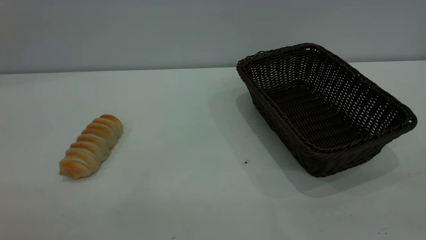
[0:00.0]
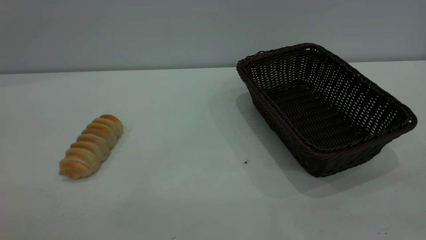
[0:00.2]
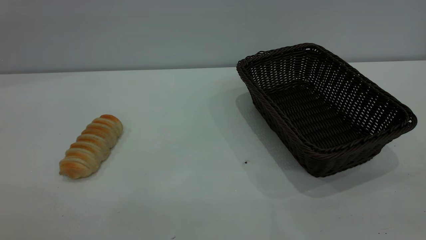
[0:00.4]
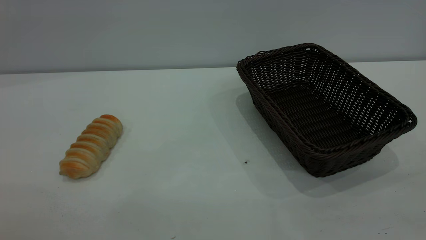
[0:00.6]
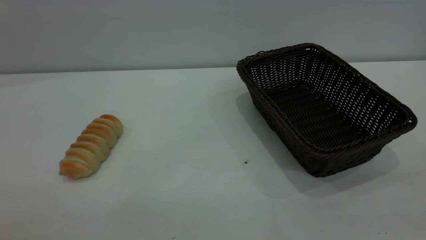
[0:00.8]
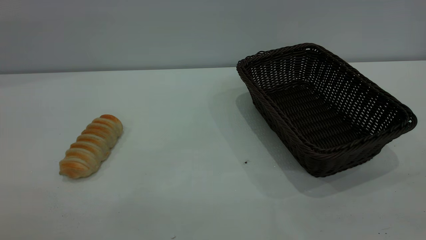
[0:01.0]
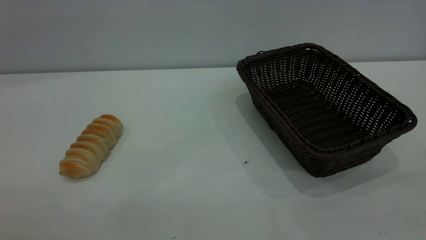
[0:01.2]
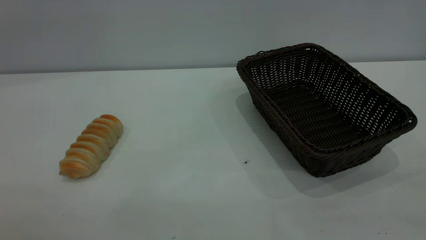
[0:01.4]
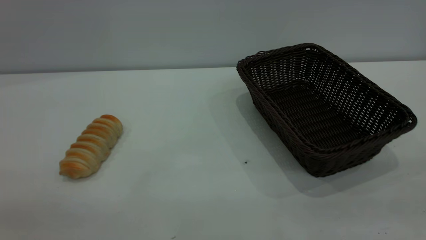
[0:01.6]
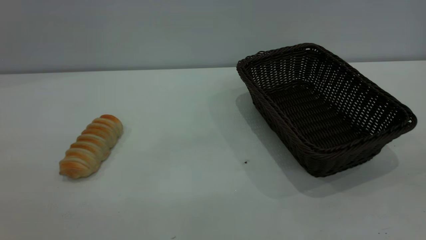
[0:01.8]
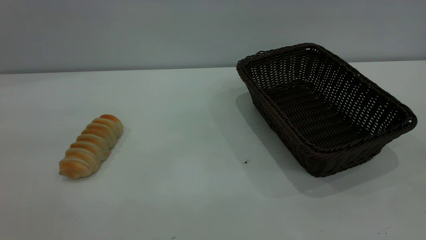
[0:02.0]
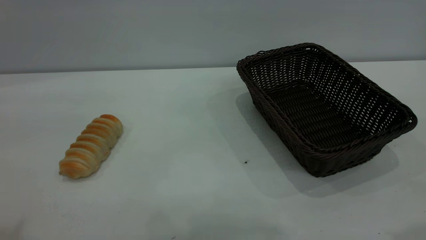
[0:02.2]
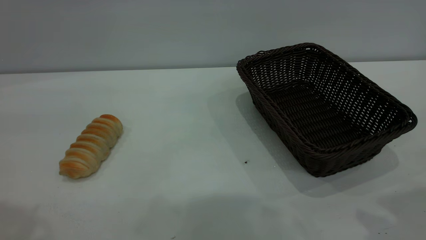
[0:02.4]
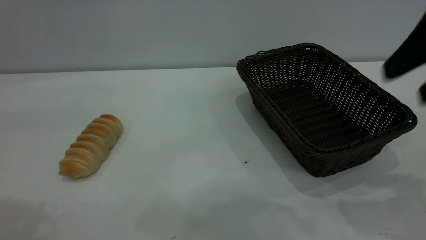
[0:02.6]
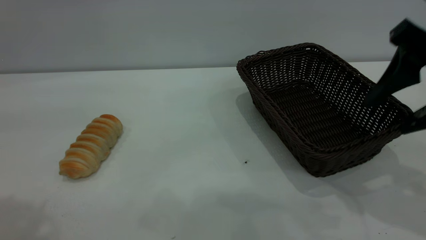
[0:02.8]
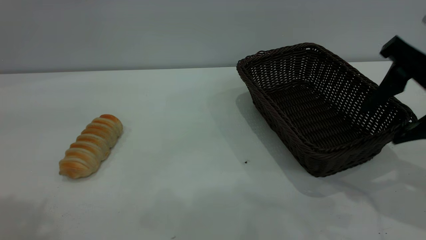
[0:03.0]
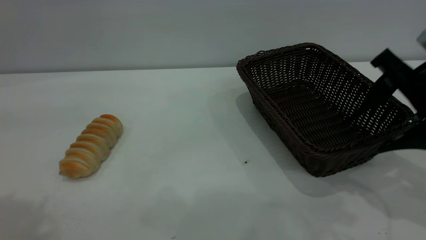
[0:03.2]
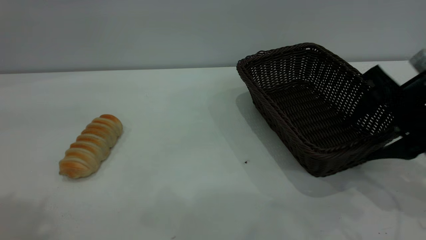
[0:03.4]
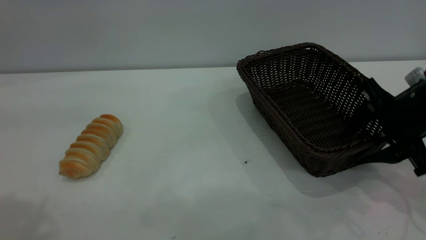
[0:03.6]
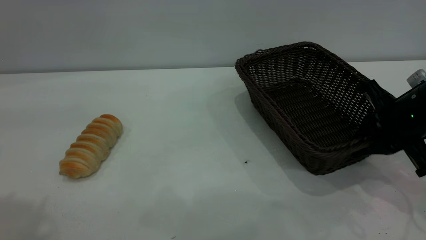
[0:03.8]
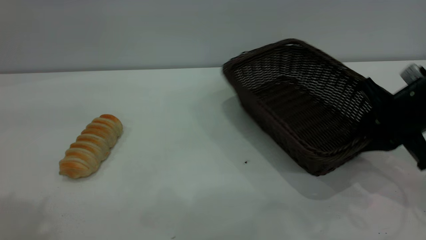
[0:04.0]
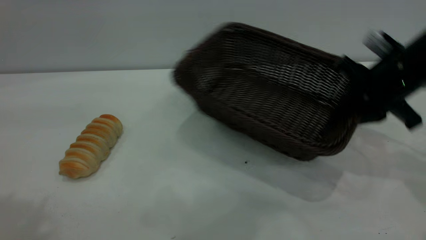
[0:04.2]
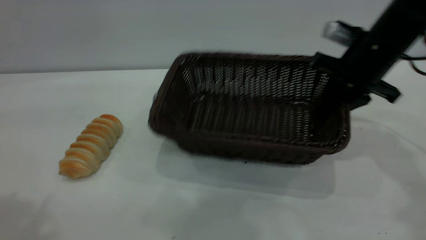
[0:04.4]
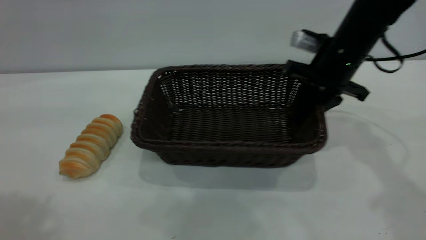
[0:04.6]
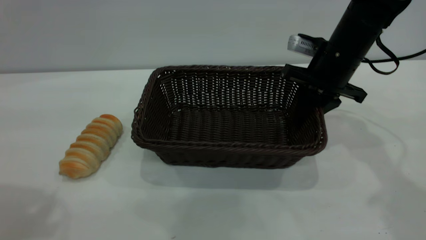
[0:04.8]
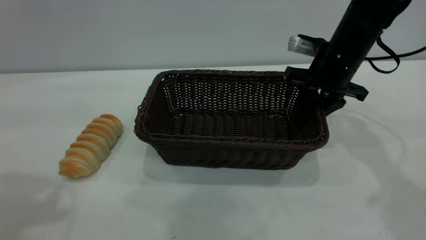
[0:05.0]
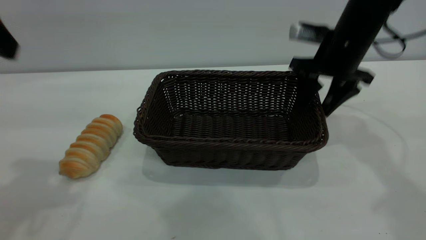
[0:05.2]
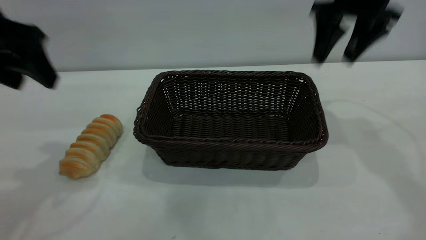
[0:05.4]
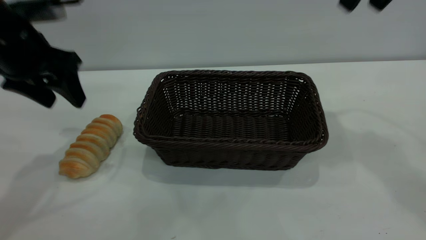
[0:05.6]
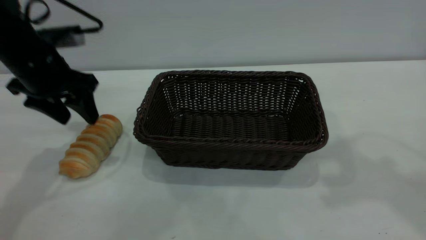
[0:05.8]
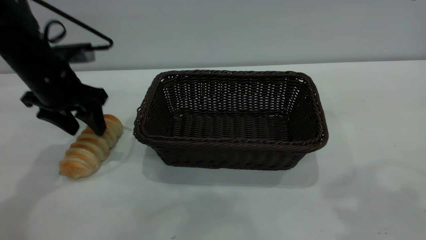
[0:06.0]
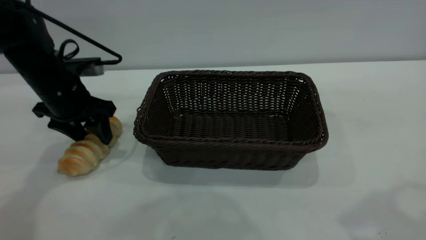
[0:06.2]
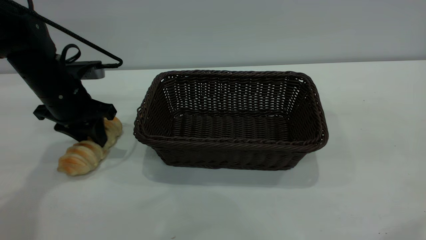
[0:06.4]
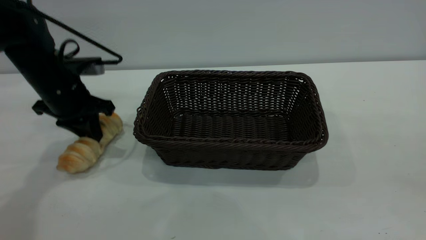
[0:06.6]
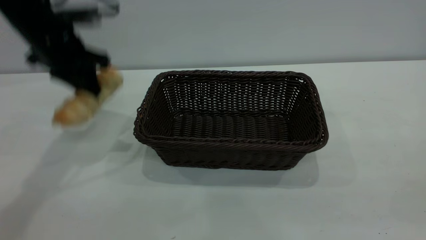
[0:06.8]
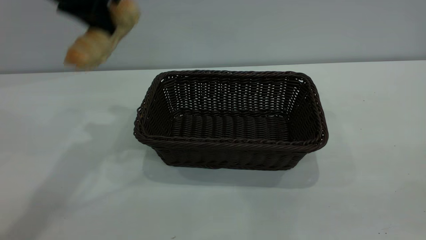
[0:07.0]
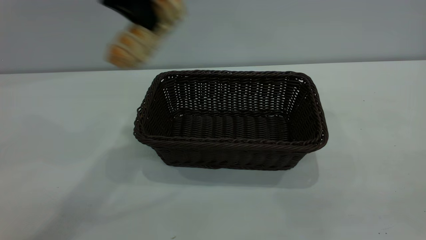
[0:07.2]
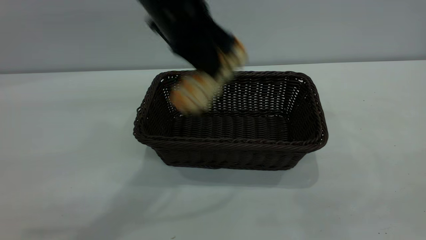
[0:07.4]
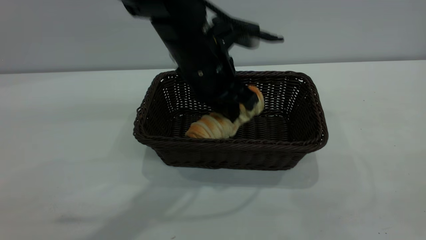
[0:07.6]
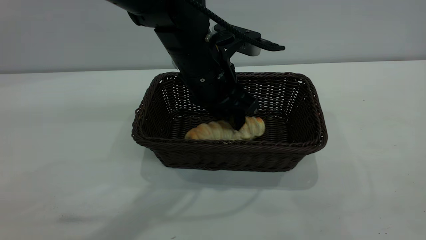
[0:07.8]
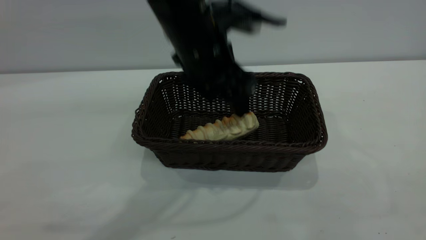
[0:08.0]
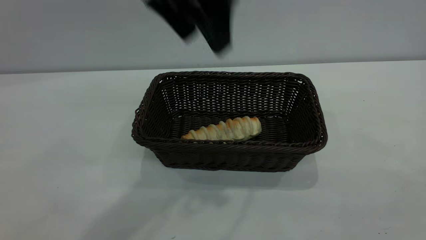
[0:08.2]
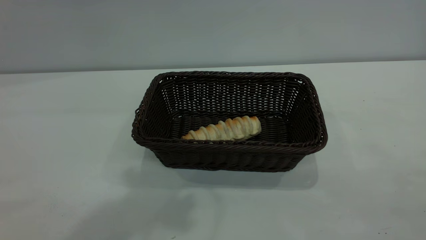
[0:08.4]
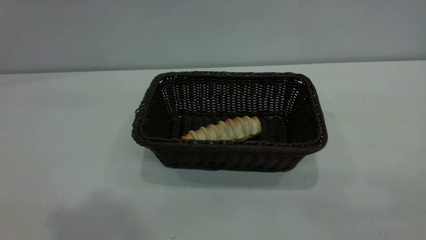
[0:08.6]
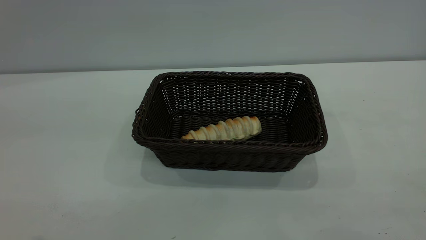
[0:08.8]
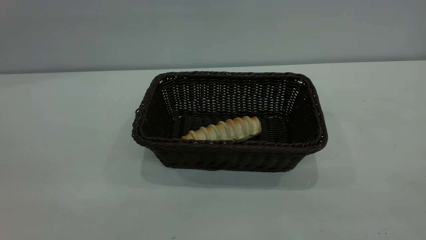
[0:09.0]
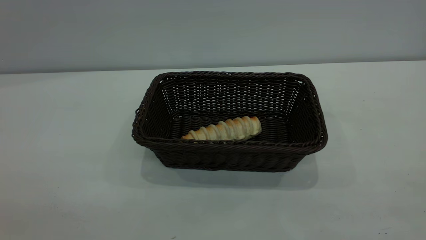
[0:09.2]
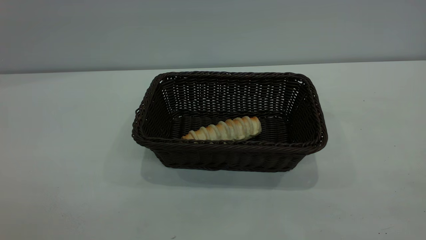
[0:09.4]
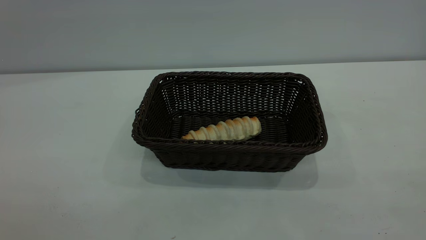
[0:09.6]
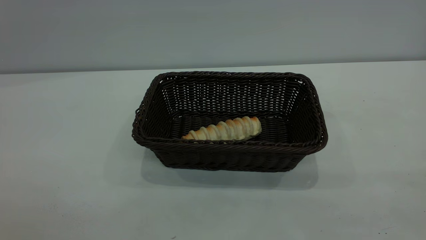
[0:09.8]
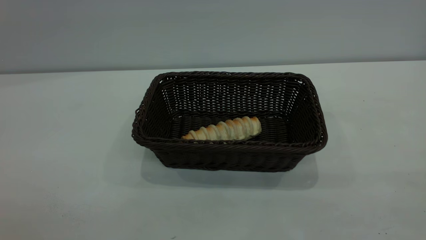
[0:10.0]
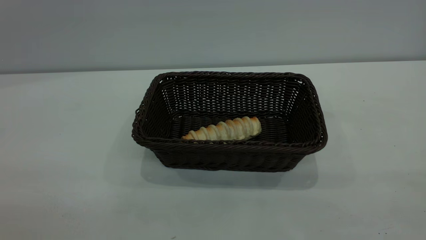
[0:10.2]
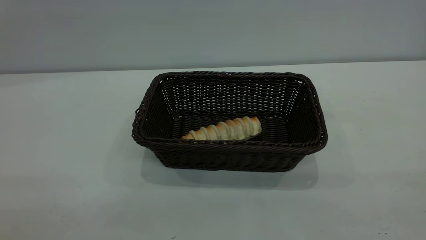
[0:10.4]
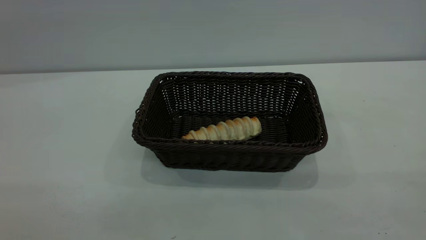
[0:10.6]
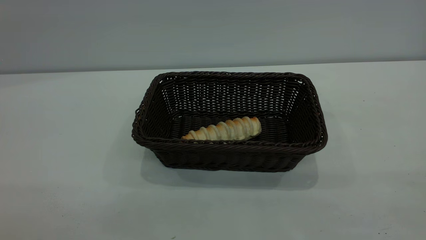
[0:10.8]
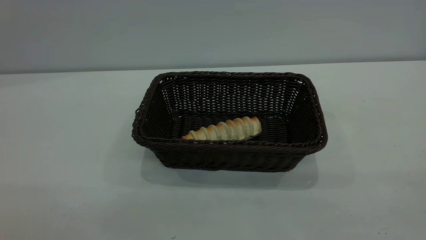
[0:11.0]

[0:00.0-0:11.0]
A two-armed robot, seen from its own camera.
Task of the whole recording: One hand grasps the black basket and places it in the middle of the table, while the other hand picks up the long bread and puts it into the black basket.
Step, 0.0 to 5.2 s: Move the basket to the center of view.
Step, 6.8 to 8.0 s: place the bread into the basket.
1.6 to 3.2 s: The right gripper heads forward and downward, covering roughly 35 cm, and opens.
3.2 to 4.8 s: The right gripper heads forward and to the left, covering roughly 15 cm, and closes up.
4.8 to 6.2 s: The left gripper shifts about 30 cm downward and forward, while the right gripper travels backward and upward by about 35 cm, and opens its fingers.
6.2 to 7.8 s: The left gripper is displaced to the right by about 25 cm, and closes and opens again. The right gripper moves backward, about 20 cm.
7.8 to 9.4 s: The left gripper is displaced backward, to the left and upward by roughly 40 cm.

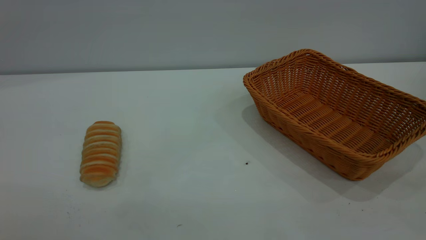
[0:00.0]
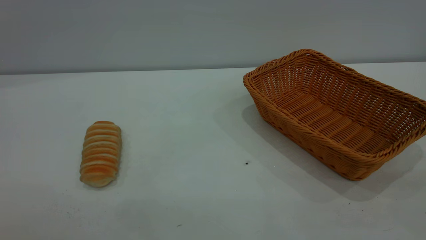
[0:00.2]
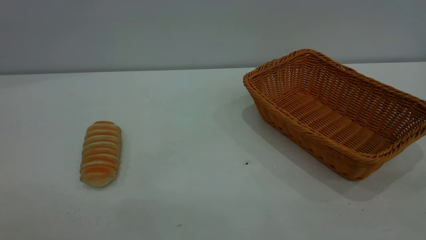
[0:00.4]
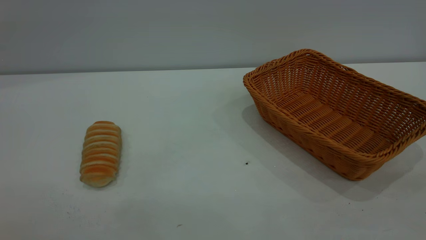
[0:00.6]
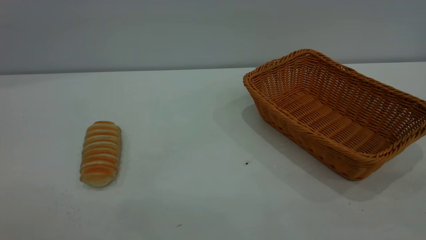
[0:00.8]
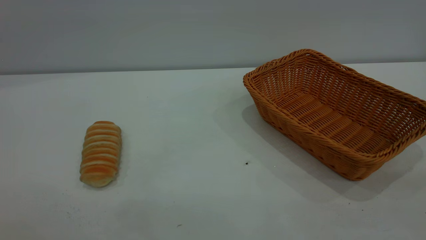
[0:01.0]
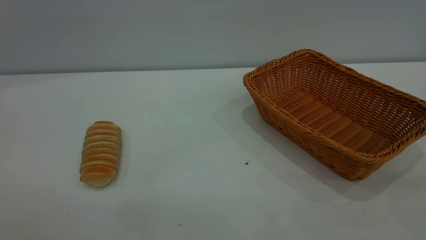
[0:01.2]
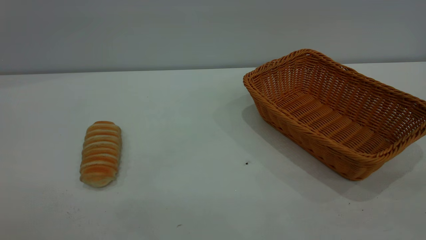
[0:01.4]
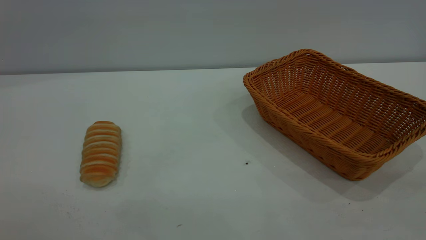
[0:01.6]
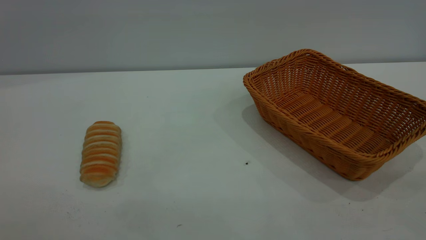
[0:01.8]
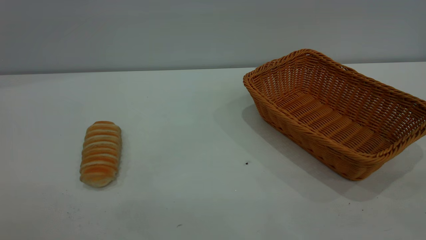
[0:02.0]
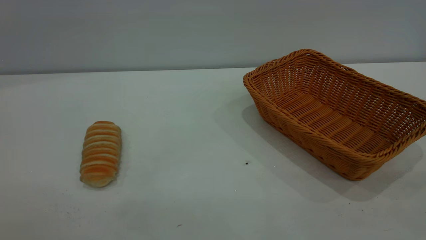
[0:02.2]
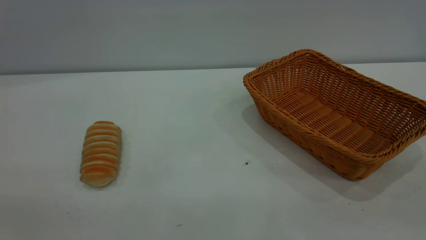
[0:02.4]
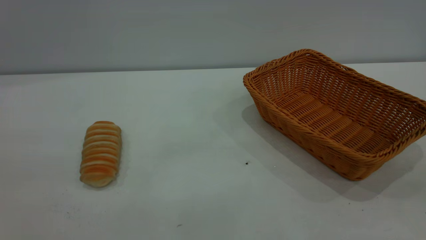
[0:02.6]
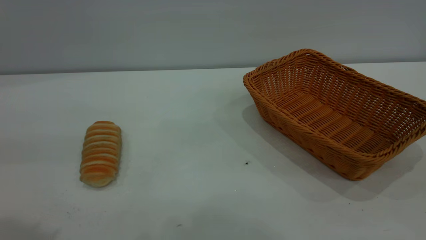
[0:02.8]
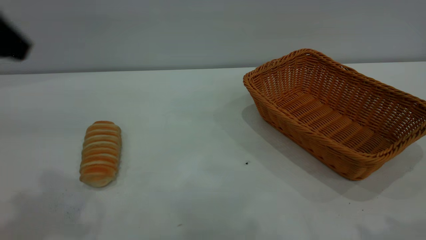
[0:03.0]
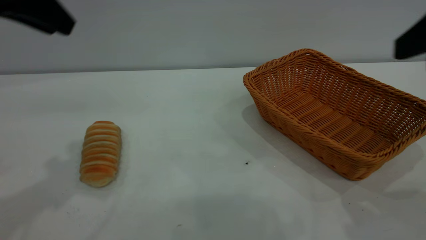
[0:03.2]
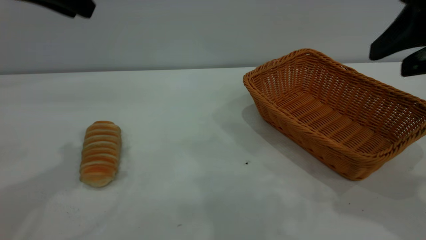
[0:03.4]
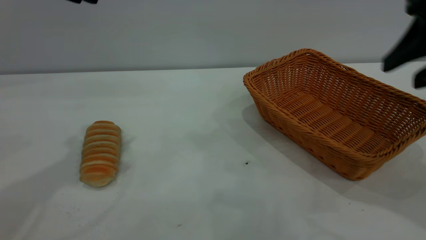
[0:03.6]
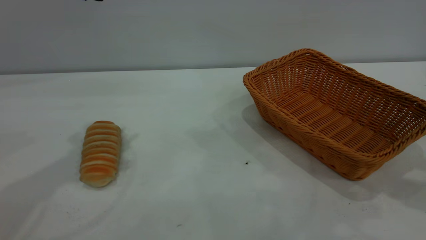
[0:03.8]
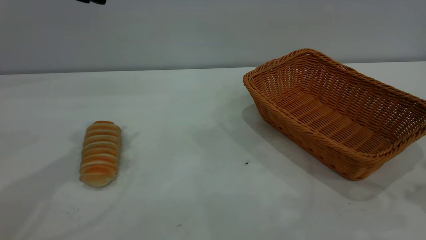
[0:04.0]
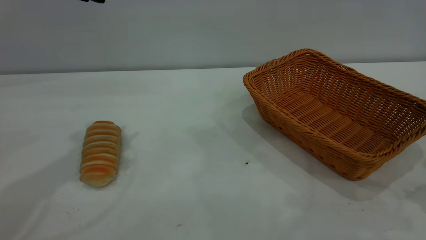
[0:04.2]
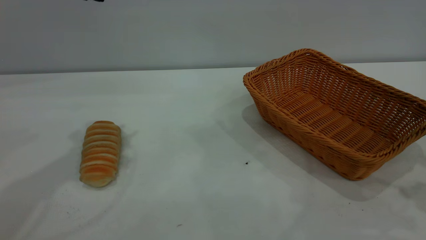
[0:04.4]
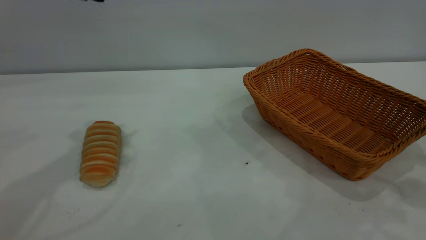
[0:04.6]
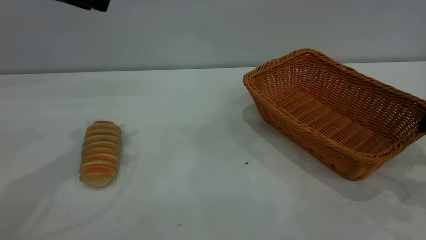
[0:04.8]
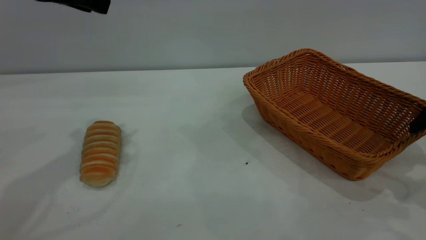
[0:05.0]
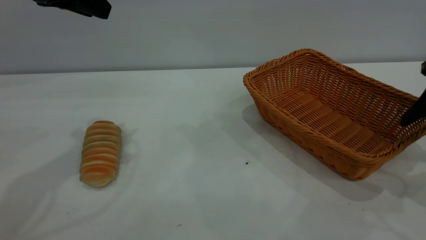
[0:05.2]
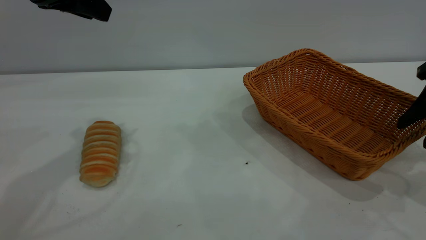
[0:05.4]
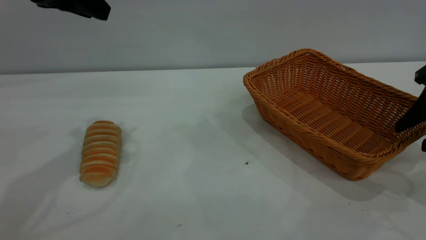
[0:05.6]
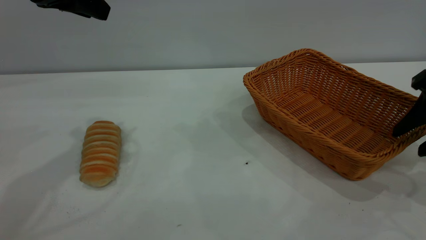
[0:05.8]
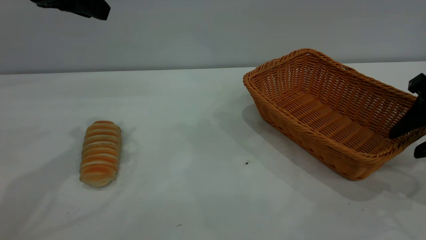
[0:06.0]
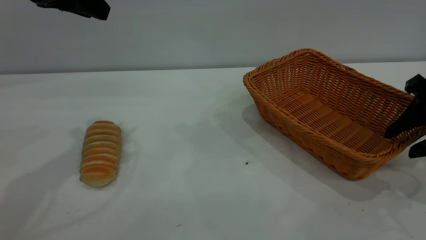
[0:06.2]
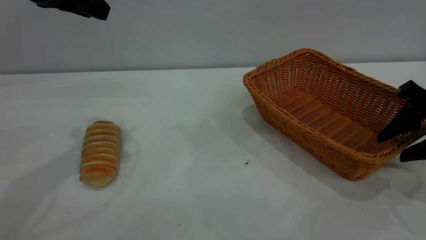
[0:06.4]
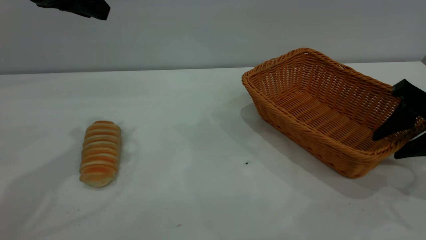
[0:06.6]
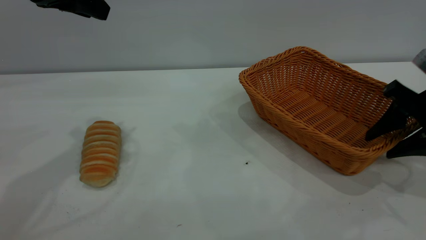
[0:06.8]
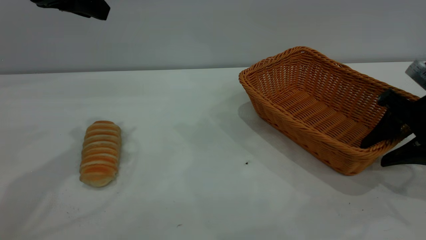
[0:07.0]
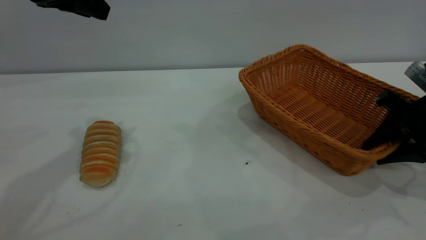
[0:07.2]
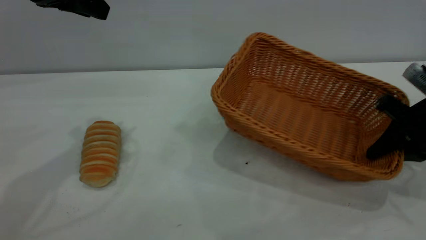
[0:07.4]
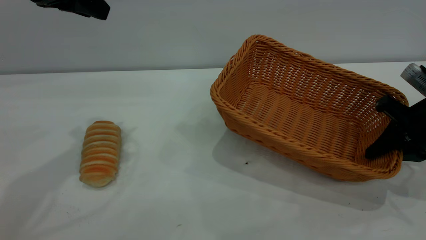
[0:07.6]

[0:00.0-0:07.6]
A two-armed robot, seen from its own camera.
Task of the whole recording: One hand grasps the yellow basket and places it in the middle of the table, while the other hand picks up the long bread and puts it into the yellow basket.
0.0 to 1.6 s: Both grippers stay put.
1.6 to 3.0 s: The left gripper is displaced forward by about 30 cm.
3.0 to 4.6 s: The left gripper travels forward by about 10 cm.
4.6 to 6.0 s: The right gripper is displaced downward by some 5 cm.
6.0 to 7.6 s: The right gripper moves about 5 cm, and closes up.
